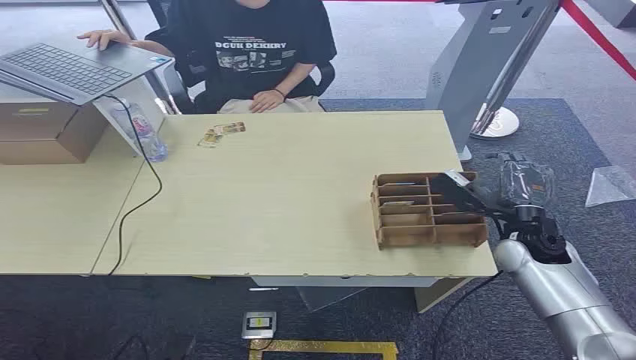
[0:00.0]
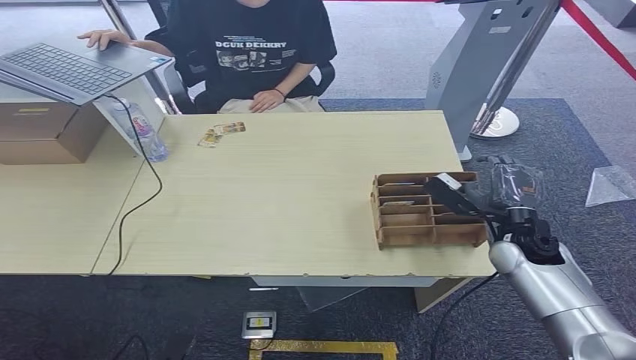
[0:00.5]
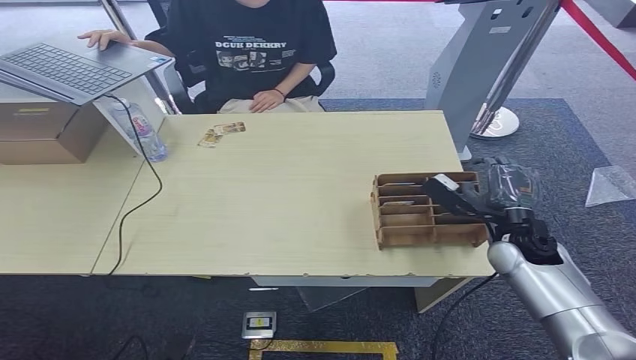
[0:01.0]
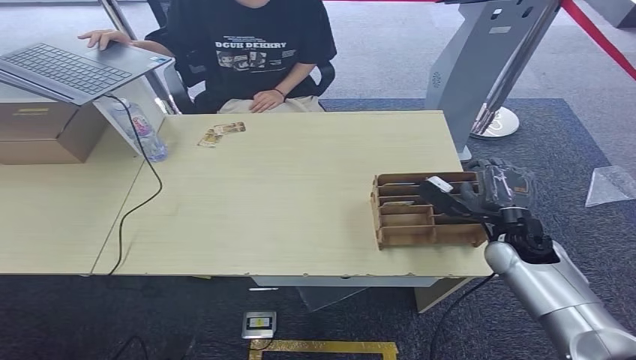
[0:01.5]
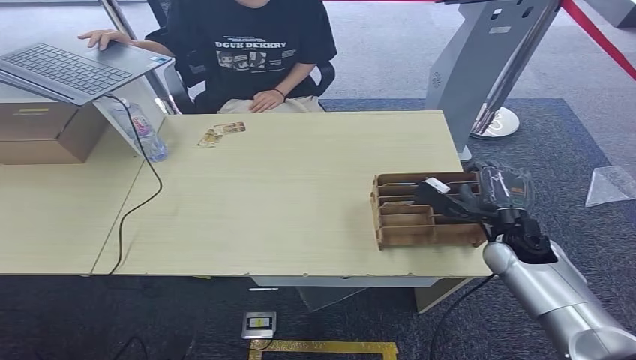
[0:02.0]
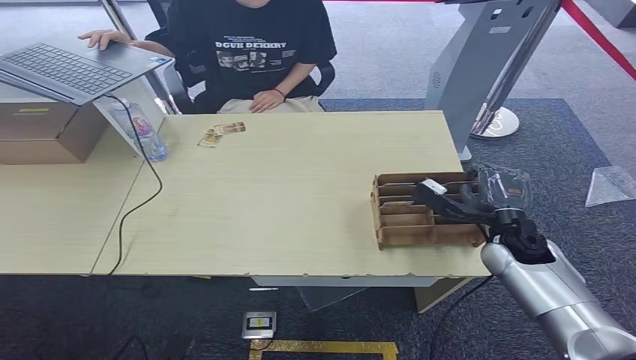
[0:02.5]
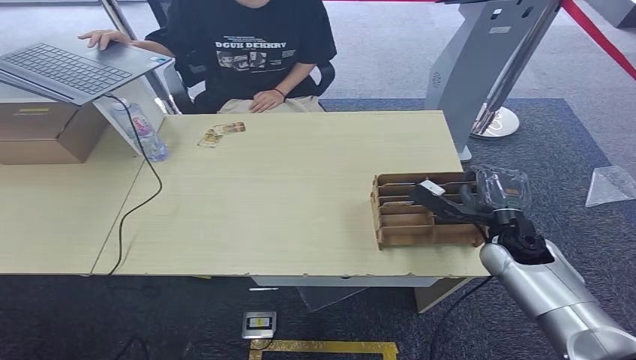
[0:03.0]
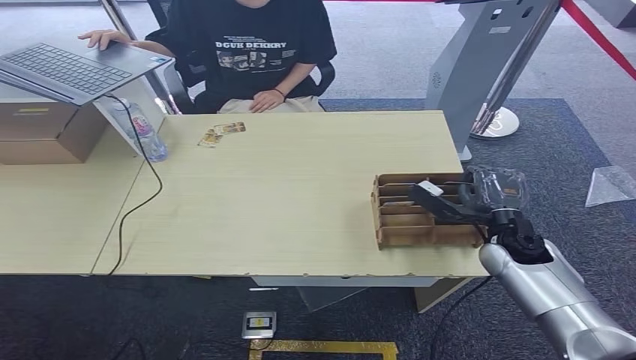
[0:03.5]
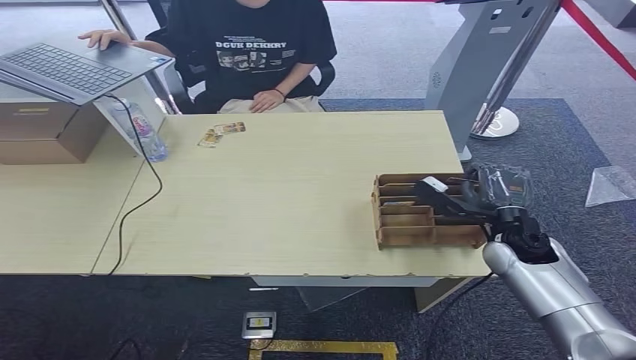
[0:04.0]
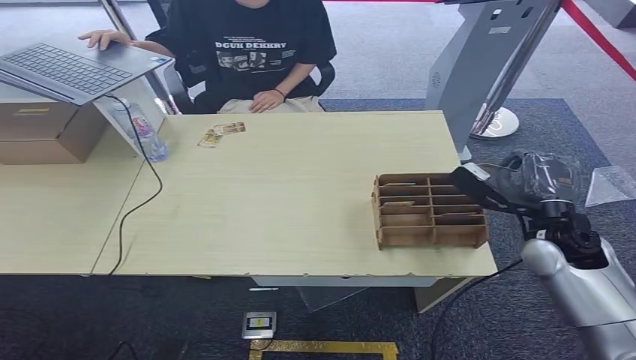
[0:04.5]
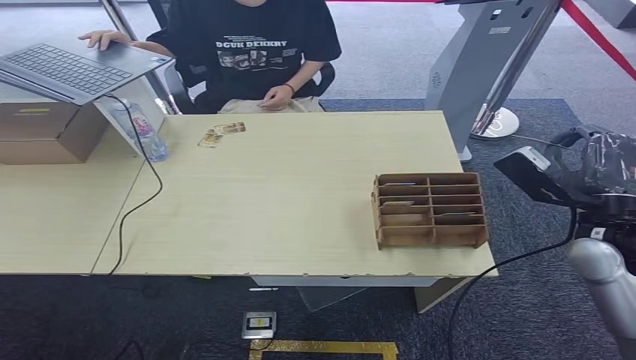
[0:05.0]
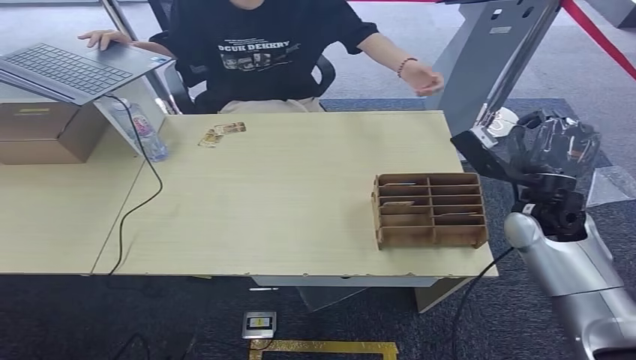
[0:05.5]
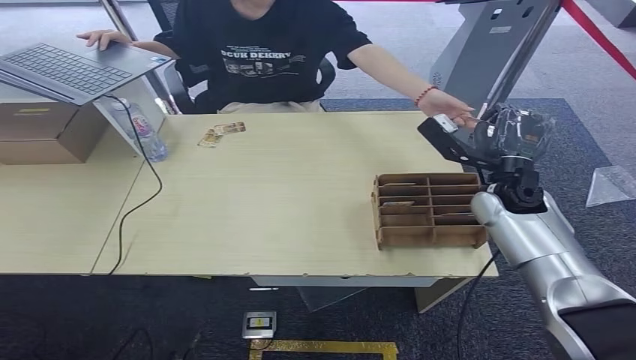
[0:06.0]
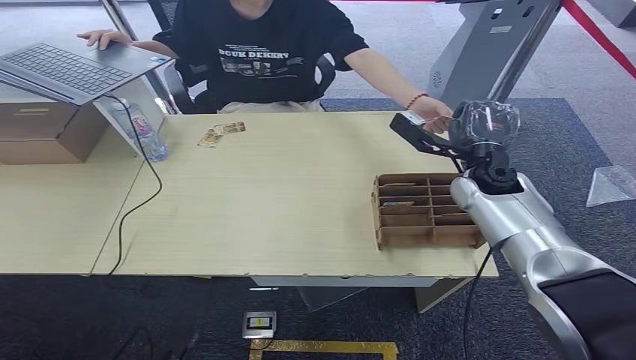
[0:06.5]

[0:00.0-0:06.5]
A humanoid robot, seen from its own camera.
Step, 0:00.0 to 0:04.0: Pick up the room card from the card holder.
Step, 0:05.0 to 0:06.5: Hand the room card to the target.
0:02.0 to 0:04.5: The right hand shifts some 5 cm upward.
0:04.5 to 0:06.5: The right hand is displaced forward and to the left by about 15 cm.
